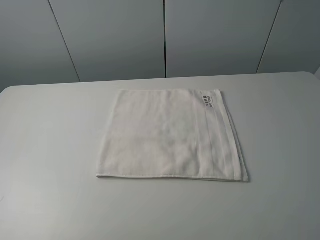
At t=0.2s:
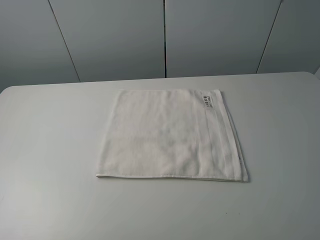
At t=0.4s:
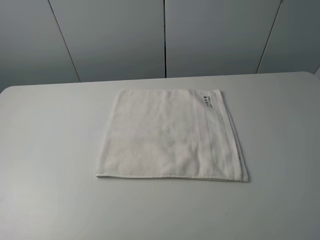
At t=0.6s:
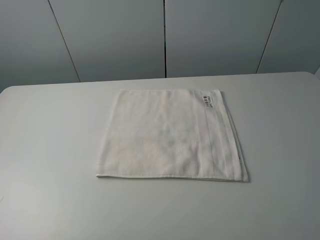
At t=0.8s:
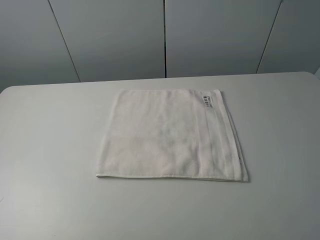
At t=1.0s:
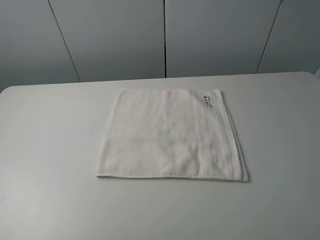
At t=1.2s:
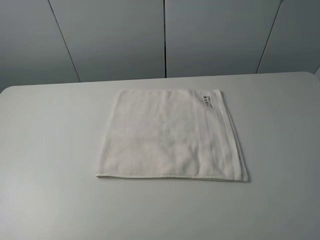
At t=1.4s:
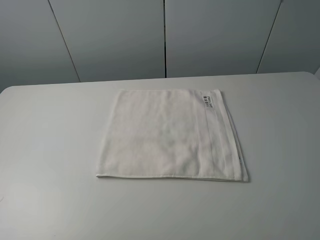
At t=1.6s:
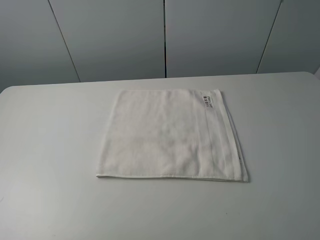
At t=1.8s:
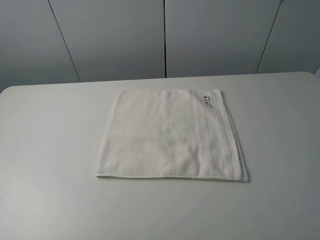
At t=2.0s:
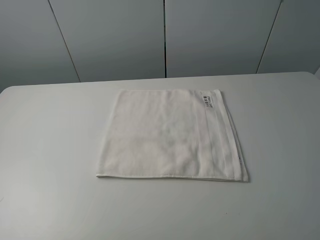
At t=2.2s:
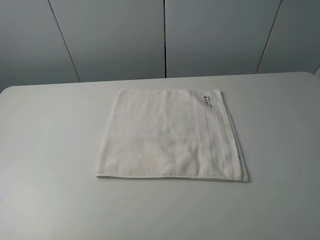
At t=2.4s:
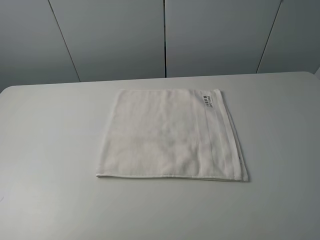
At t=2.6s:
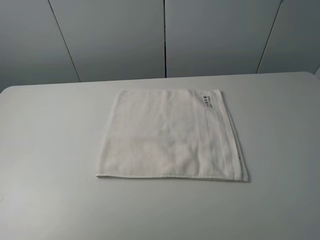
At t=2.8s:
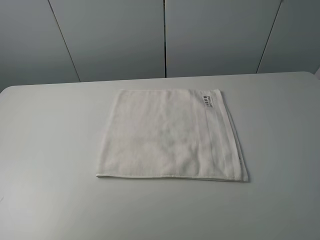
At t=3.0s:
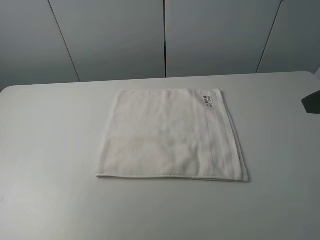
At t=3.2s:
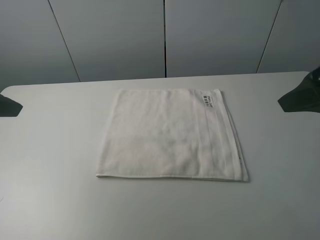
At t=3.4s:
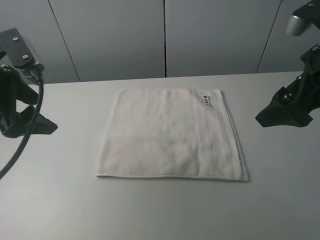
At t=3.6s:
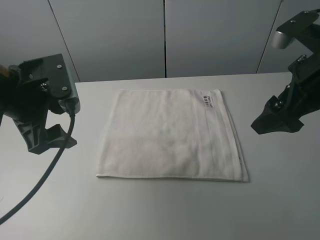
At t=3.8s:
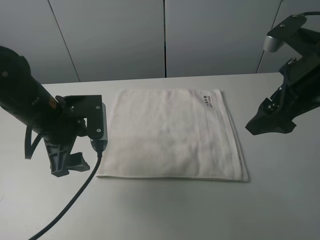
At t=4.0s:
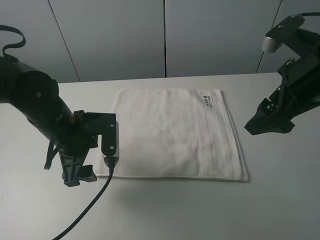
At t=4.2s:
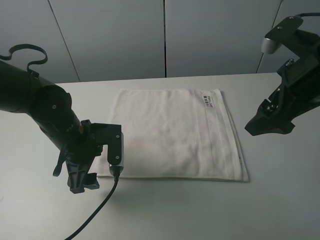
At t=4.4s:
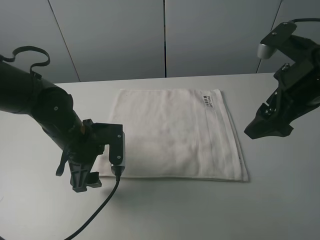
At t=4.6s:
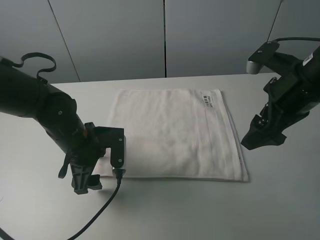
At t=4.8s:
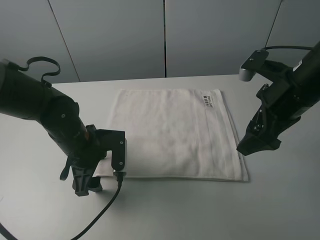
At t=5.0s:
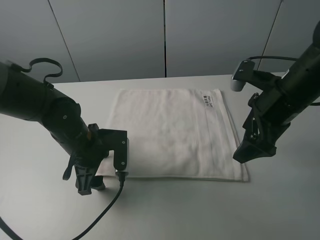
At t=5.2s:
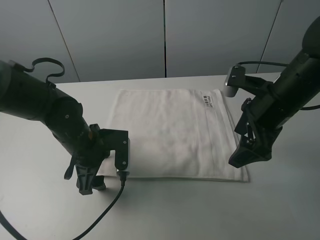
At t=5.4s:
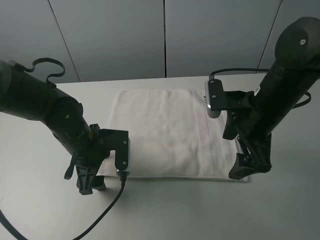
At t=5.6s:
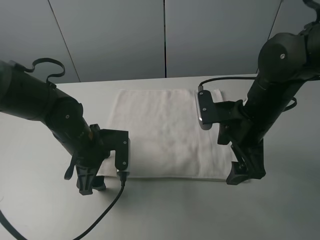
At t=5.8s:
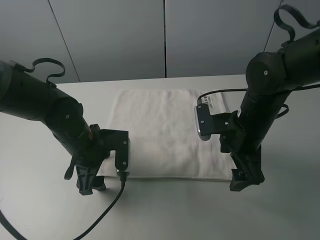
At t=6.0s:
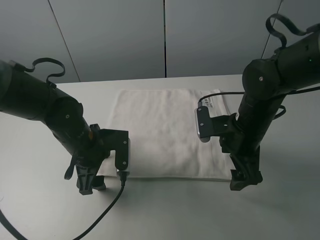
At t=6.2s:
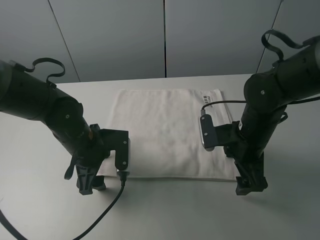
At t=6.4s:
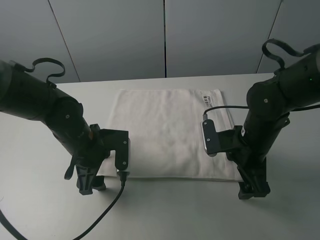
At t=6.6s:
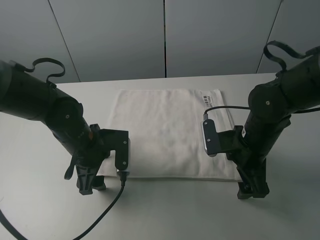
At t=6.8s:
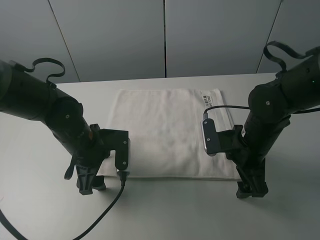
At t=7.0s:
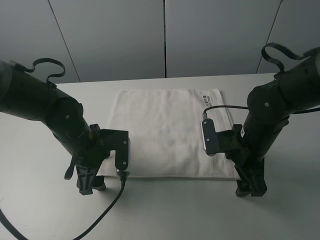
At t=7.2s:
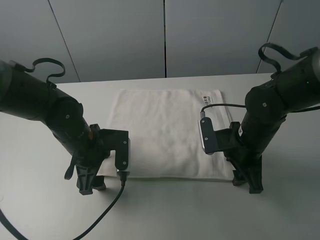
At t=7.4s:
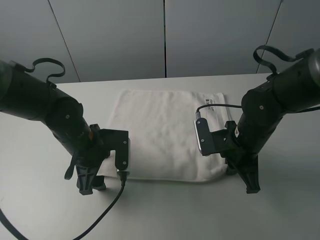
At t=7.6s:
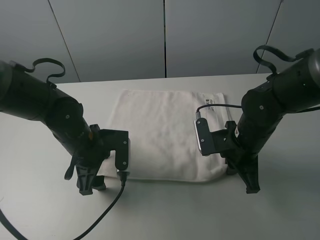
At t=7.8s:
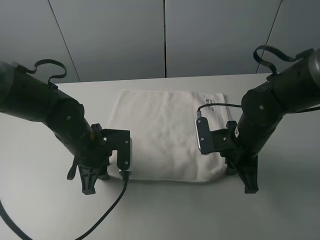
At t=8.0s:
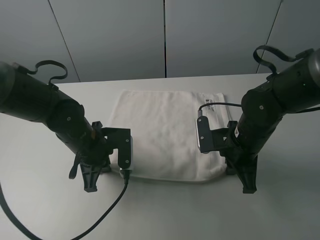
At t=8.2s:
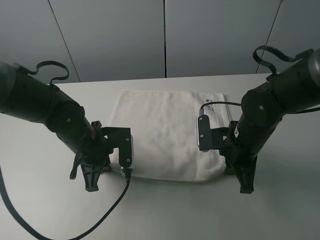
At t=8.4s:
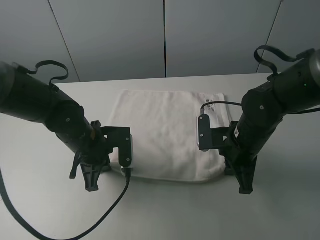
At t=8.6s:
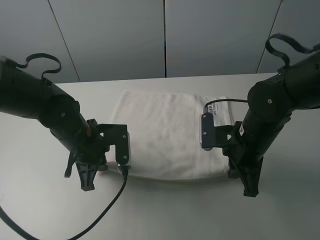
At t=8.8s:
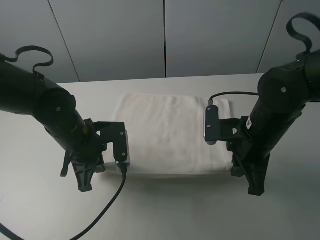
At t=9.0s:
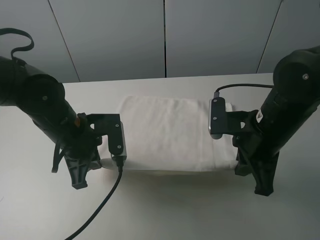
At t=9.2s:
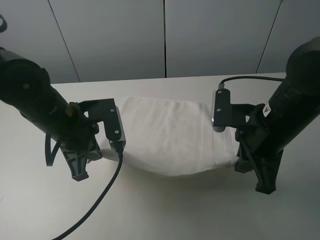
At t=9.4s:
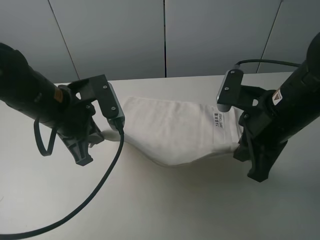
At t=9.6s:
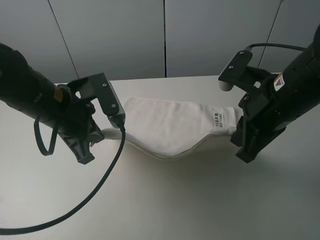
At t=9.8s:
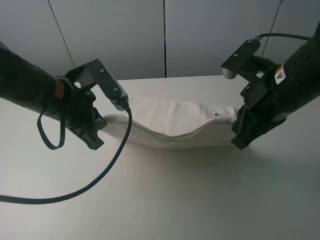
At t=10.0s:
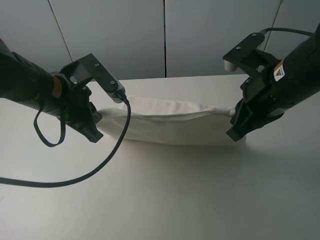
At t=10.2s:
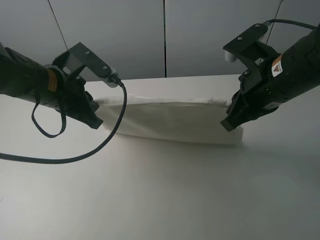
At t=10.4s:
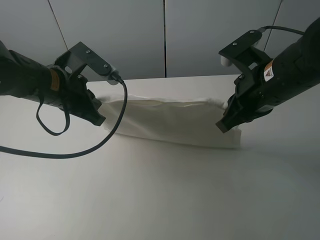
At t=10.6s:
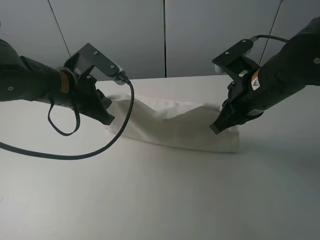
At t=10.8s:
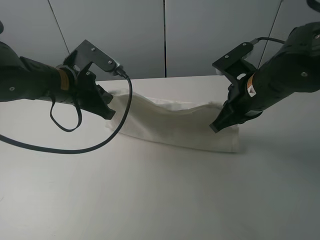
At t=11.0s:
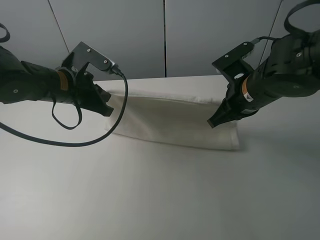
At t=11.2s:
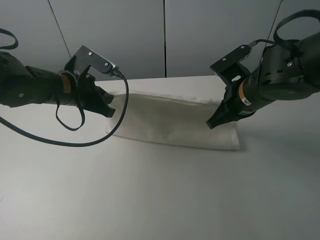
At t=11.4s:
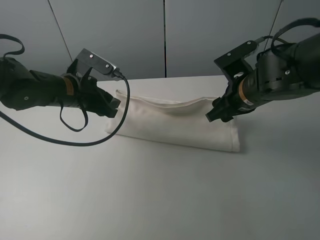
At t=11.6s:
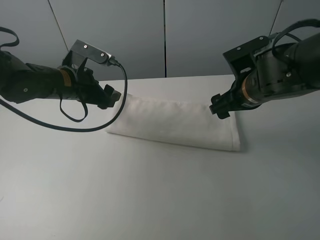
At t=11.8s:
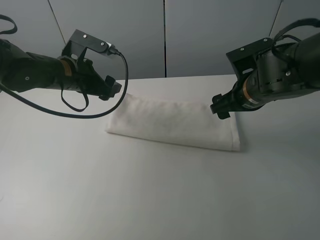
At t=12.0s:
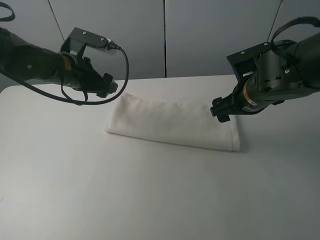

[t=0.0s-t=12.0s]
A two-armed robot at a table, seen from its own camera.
Task of the whole recording: fold the towels on the table.
Step, t=0.0s to t=7.4s: Grasp the white towel with the right gripper.
Step, t=7.6s to t=8.0s: Grasp the white towel with the left gripper.
Step, t=8.2s to t=11.6s: Fold the white towel upwards with the right gripper.
t=0.0s to t=1.6s: Neither gripper changes place.
t=3.0s to t=4.4s: The left gripper is displaced downward and to the right by some 25 cm, while the right gripper goes roughly 10 cm forward and downward.
t=4.4s to t=6.0s: The right gripper moves downward and to the left, approximately 15 cm.
t=6.0s to t=7.6s: The right gripper closes its fingers.
t=7.6s to t=9.0s: Both grippers travel together upward, some 5 cm. The left gripper closes its fingers.
t=9.0s to t=10.4s: The right gripper moves roughly 5 cm; the left gripper goes some 5 cm upward.
t=10.4s to t=12.0s: The right gripper heads downward, covering some 5 cm, and opens. Meanwhile the left gripper moves forward, about 10 cm, and opens its fingers.

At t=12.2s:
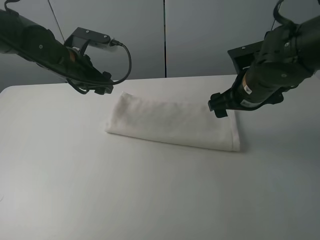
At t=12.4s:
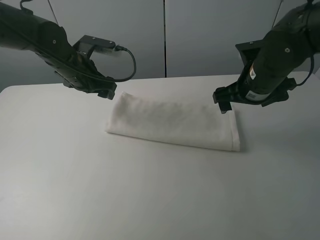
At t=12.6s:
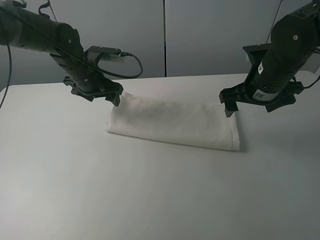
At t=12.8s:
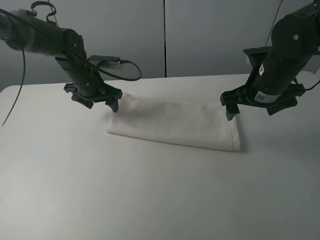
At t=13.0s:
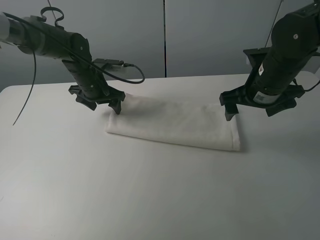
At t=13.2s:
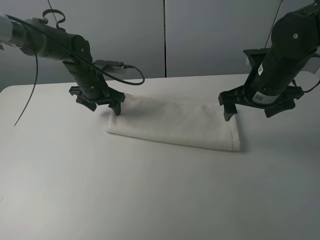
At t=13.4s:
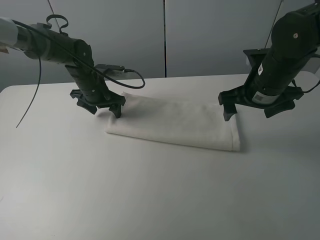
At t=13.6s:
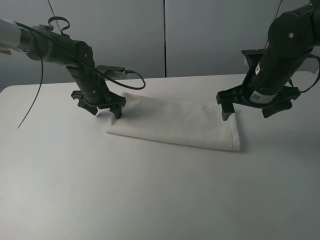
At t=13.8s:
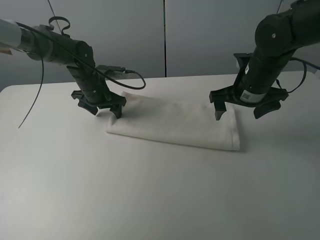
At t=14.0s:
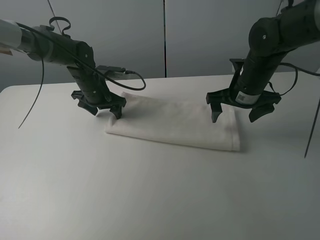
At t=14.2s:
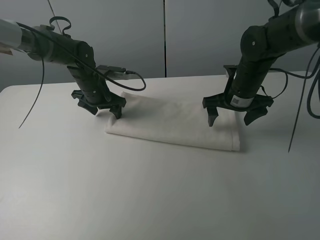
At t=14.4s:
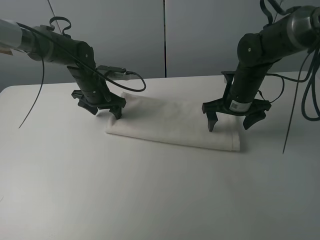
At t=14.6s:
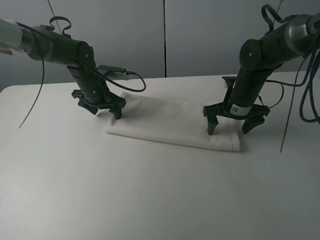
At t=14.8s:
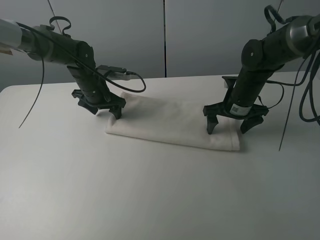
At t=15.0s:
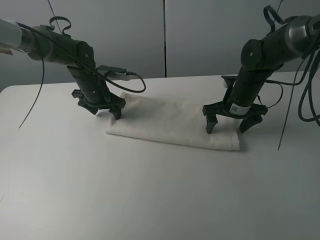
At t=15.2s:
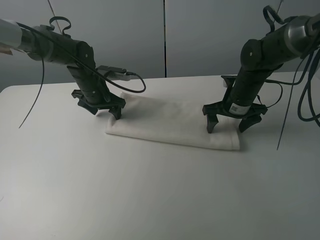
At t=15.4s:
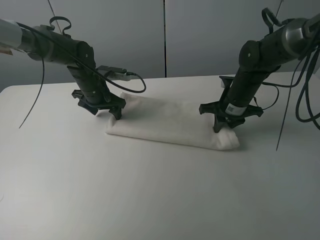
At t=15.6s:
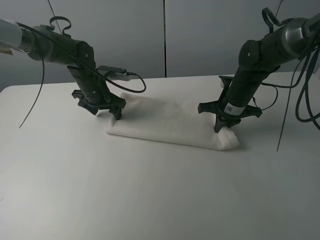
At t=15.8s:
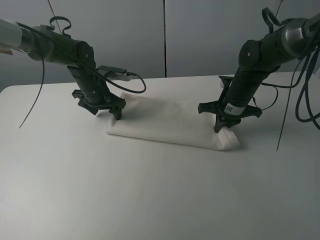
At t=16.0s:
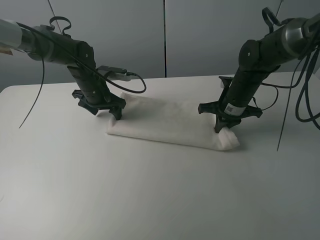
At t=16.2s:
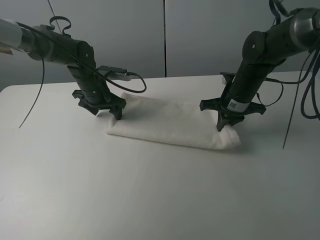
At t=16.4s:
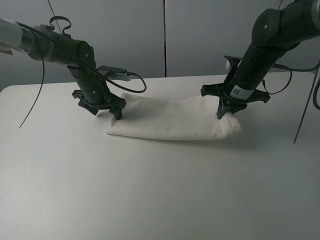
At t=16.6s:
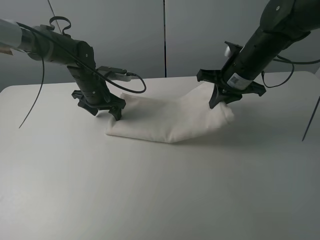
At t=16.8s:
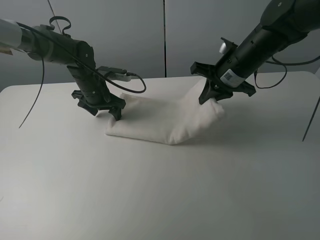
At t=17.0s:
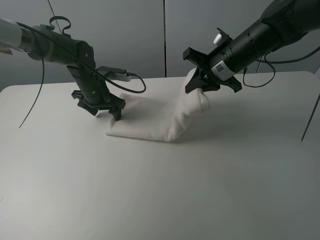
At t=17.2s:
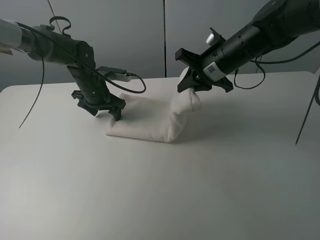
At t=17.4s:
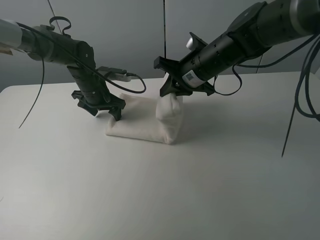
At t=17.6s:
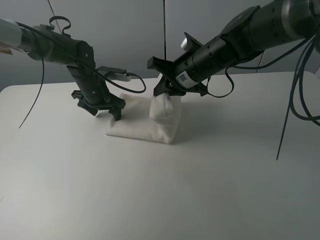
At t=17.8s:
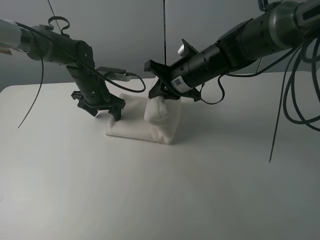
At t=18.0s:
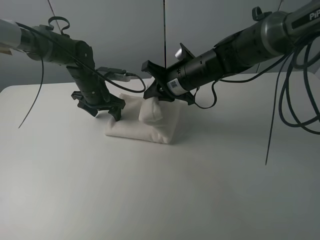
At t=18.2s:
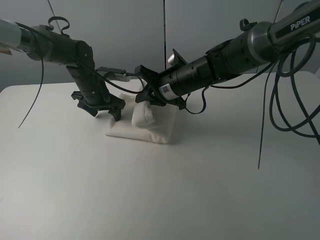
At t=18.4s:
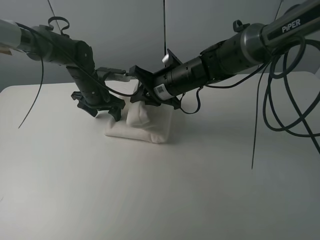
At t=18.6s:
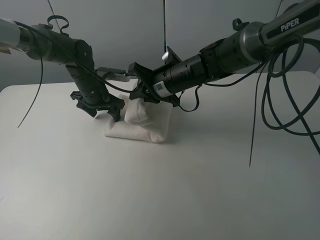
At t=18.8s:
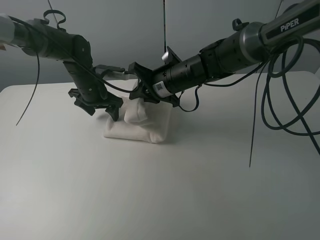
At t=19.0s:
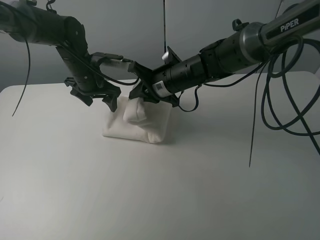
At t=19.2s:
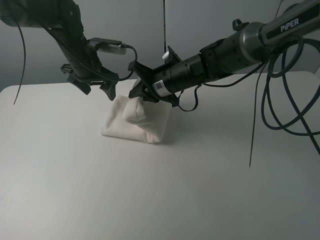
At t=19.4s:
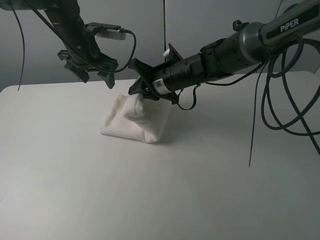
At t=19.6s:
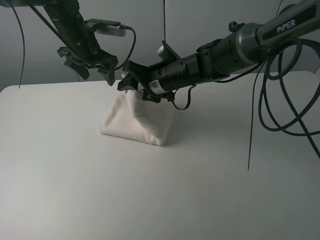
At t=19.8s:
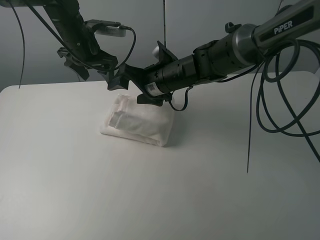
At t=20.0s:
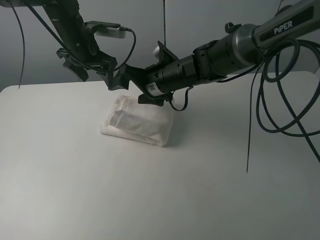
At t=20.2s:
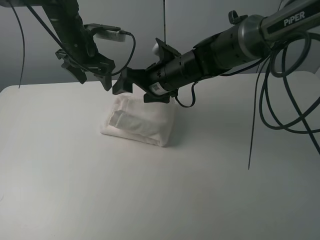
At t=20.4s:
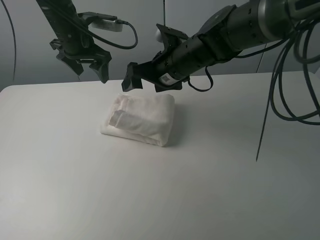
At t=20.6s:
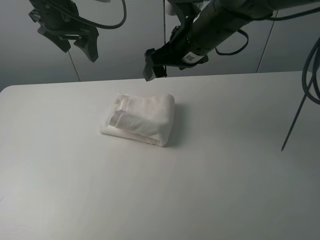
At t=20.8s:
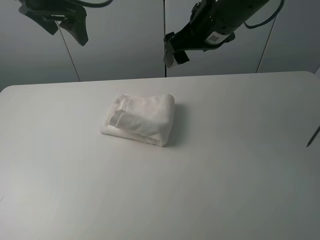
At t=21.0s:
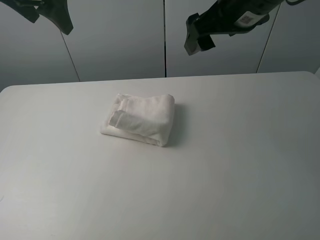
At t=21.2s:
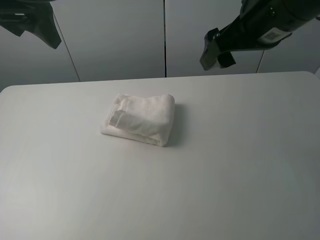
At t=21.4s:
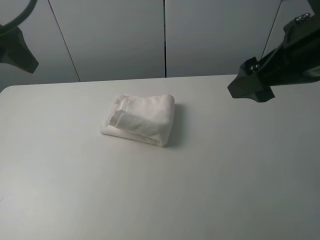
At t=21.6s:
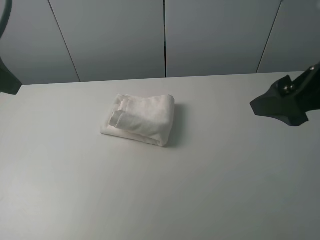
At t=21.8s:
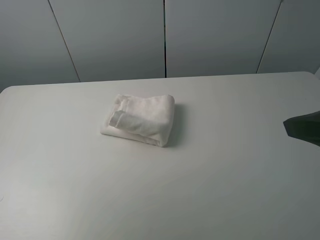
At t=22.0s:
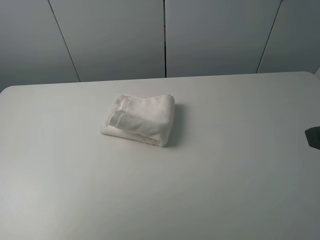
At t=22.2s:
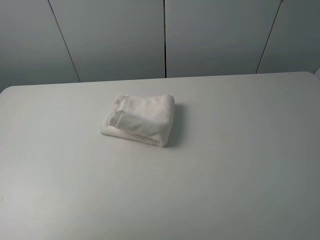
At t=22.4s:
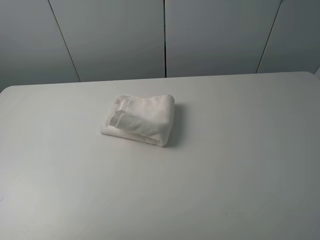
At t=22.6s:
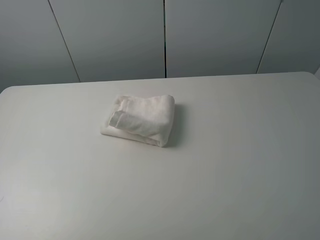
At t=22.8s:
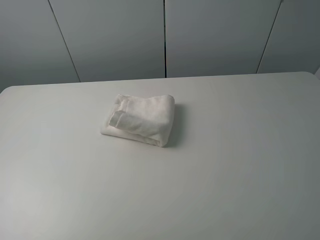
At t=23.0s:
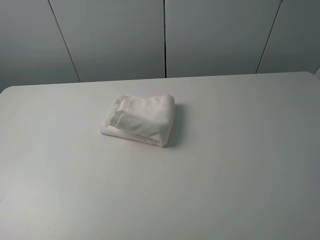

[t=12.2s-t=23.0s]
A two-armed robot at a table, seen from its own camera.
Task of the whole recording: fold the towels on the table.
Step, t=12.2s to t=13.4s: Press on the white towel with the left gripper.
Step, t=13.6s to t=20.0s: Fold the white towel from right to left with right gripper.
t=12.2s to t=13.8s: The left gripper goes roughly 10 cm downward and forward.
t=13.8s to t=15.2s: The right gripper is displaced downward by roughly 5 cm.
t=15.2s to t=16.8s: The right gripper moves upward, about 10 cm, and closes up.
t=16.8s to t=18.4s: The right gripper is displaced to the left and downward by approximately 15 cm.
t=18.4s to t=20.0s: The right gripper opens its fingers. The left gripper shifts some 10 cm upward.
t=20.0s to t=21.4s: The left gripper travels backward and upward by about 25 cm; the right gripper is displaced backward, to the right and upward by some 30 cm.
t=21.4s to t=23.0s: The left gripper goes approximately 25 cm backward. Meanwhile the right gripper heads backward and to the right, covering about 20 cm.
